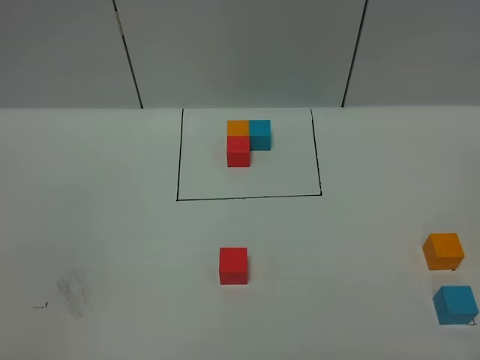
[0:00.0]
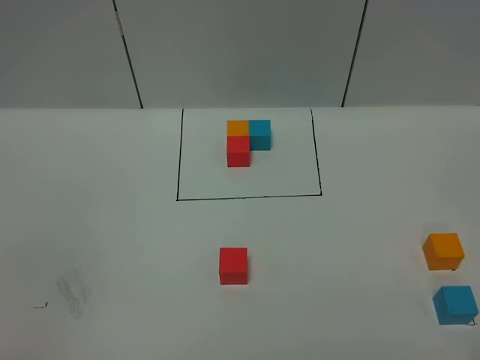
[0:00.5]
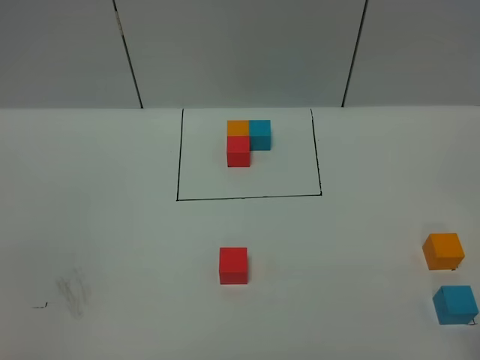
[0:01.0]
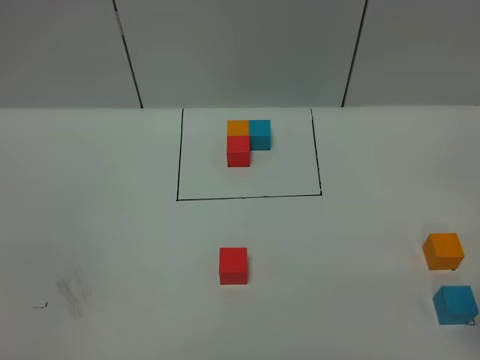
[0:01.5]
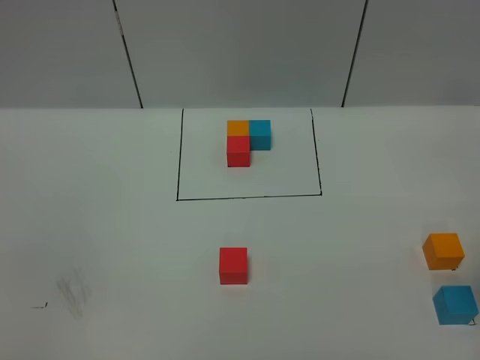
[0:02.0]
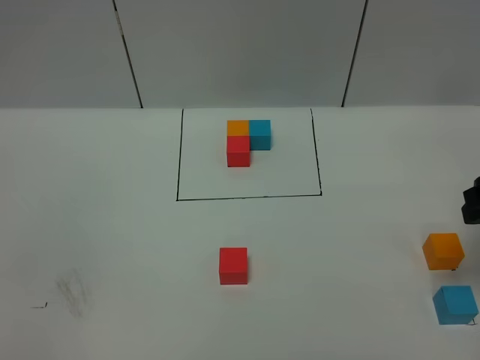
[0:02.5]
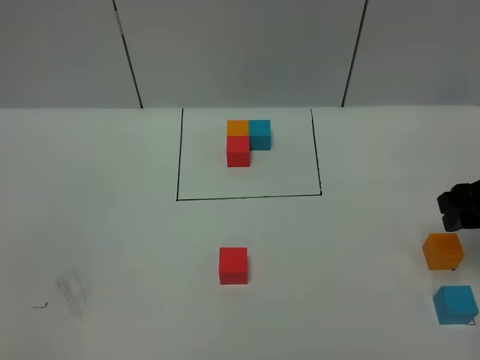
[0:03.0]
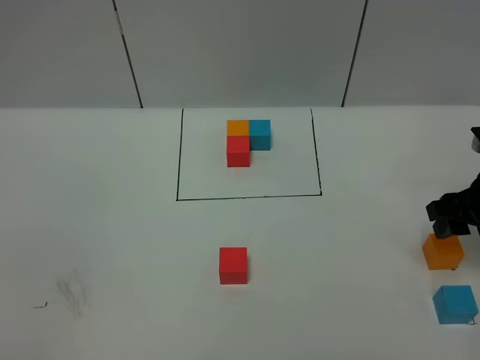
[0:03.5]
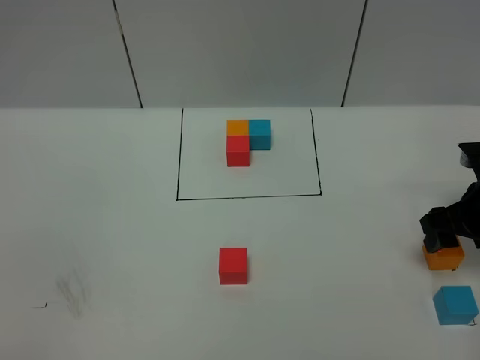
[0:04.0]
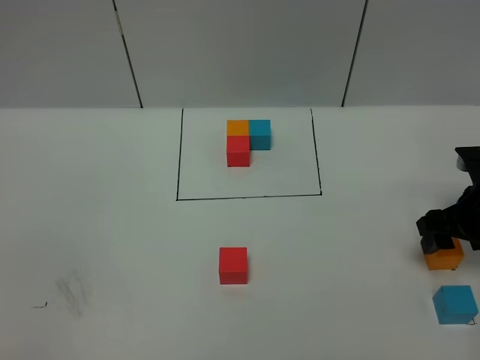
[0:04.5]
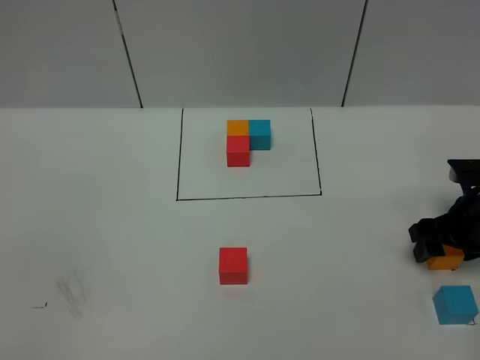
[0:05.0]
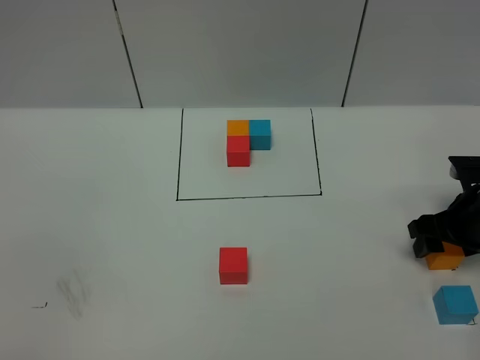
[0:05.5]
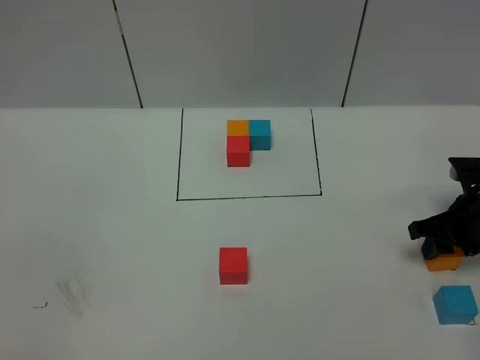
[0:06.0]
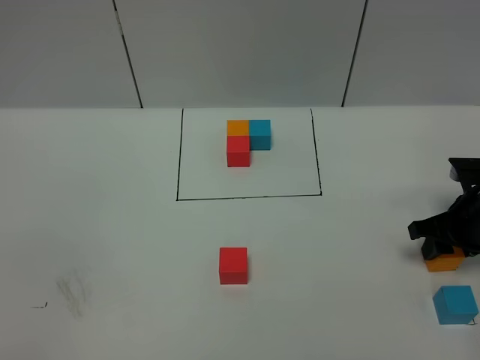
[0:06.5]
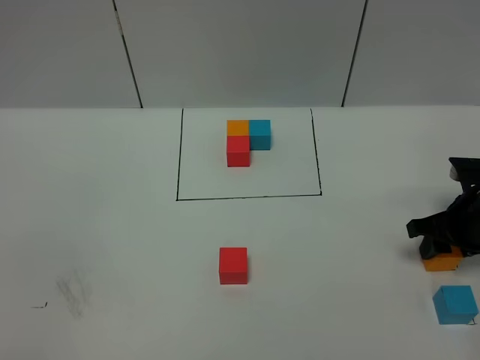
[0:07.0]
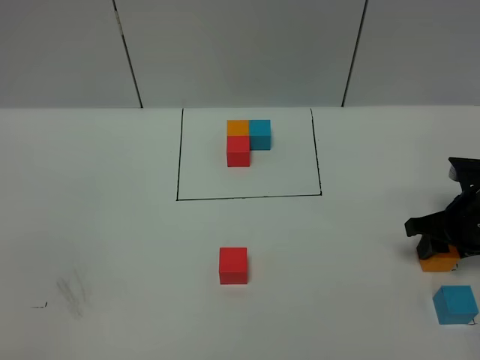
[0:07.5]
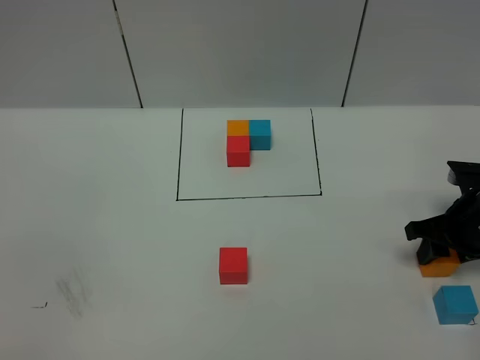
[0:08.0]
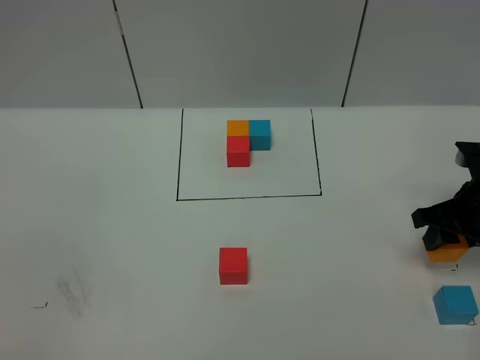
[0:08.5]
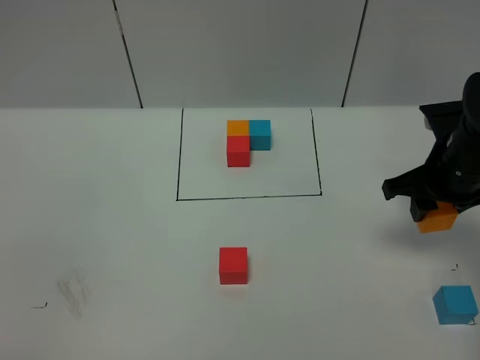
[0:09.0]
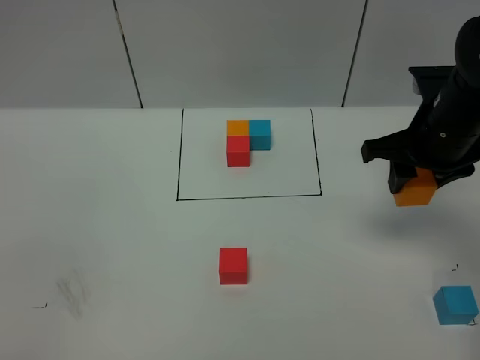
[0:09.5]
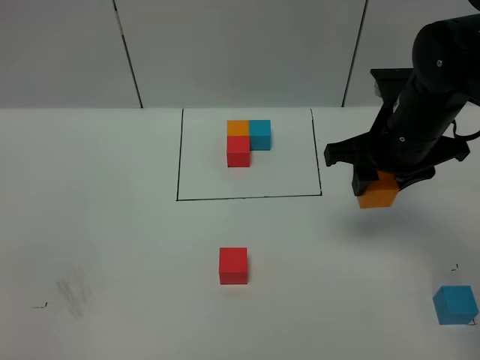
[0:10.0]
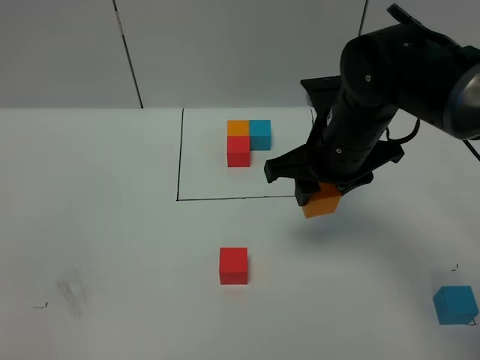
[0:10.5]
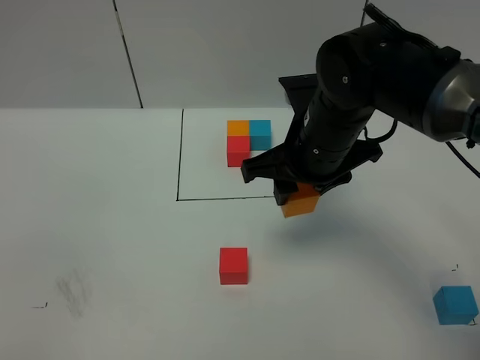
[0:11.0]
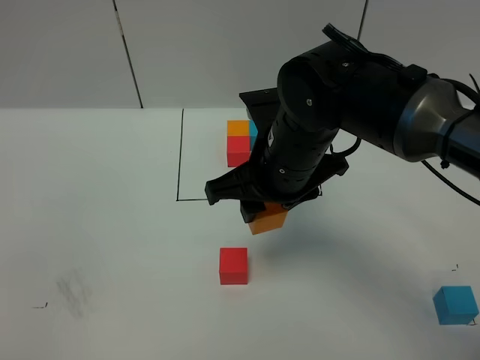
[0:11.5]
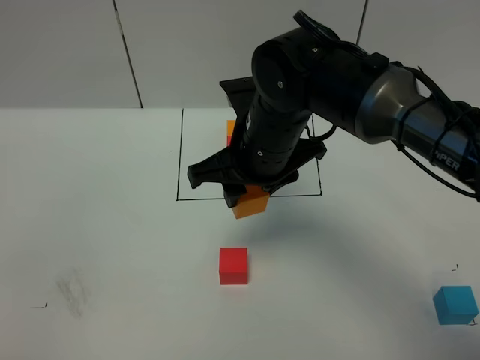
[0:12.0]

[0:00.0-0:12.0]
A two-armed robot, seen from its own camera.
Task of the whole recording: According to the building block template in front, assemble the scattered blocks together.
0:02.0 to 0:04.0: The right gripper moves downward and forward, some 20 cm.
0:04.0 to 0:06.0: The right gripper closes its fingers.
0:06.0 to 0:08.0: Neither gripper changes place.
0:08.0 to 0:10.0: The right gripper travels upward and to the left by some 20 cm.
0:10.0 to 0:12.0: The right gripper travels to the left by about 15 cm.

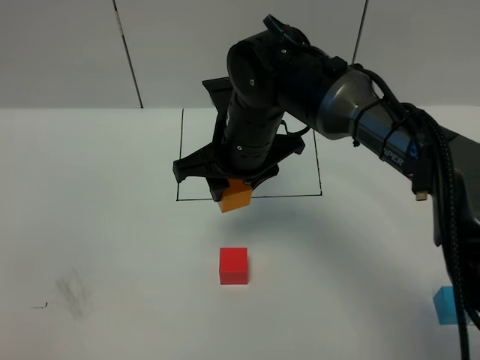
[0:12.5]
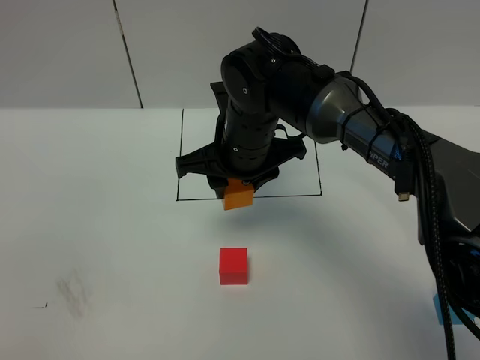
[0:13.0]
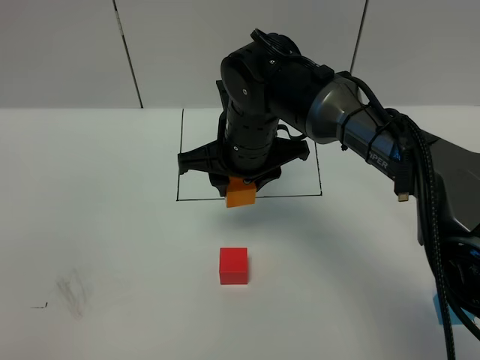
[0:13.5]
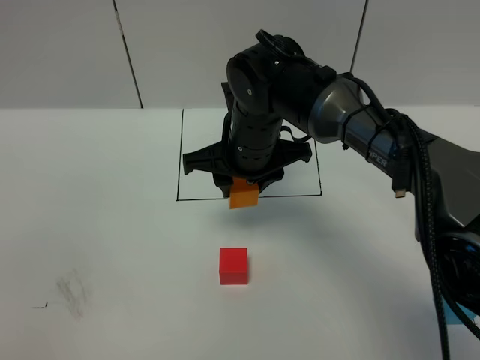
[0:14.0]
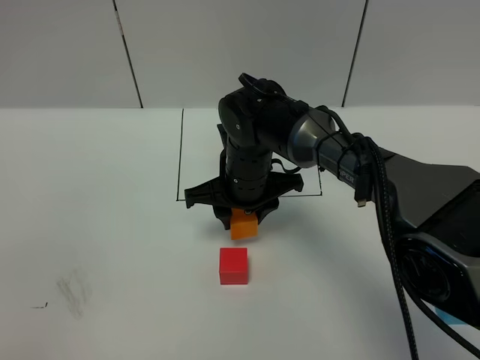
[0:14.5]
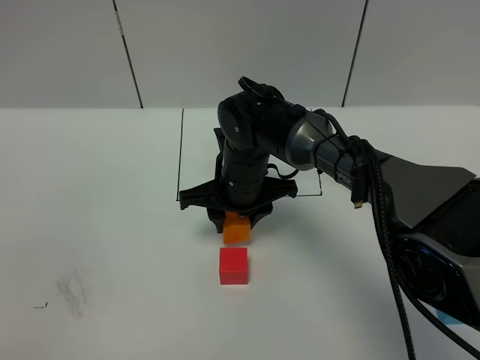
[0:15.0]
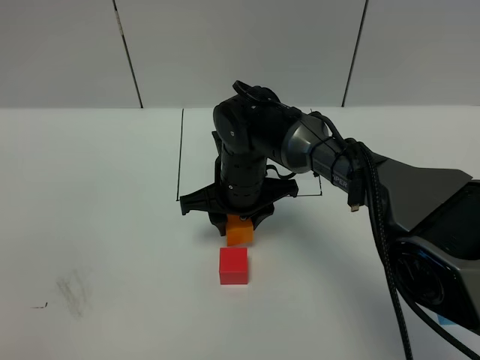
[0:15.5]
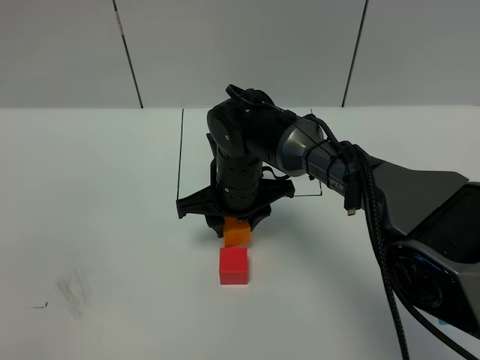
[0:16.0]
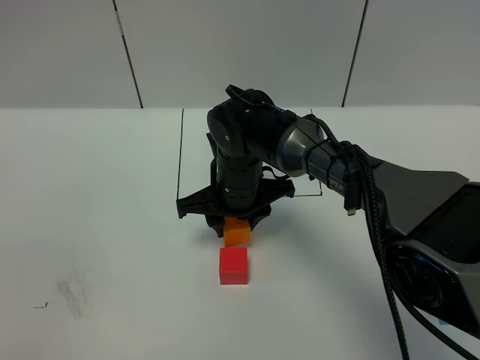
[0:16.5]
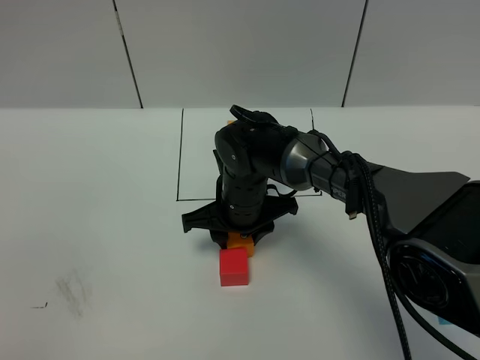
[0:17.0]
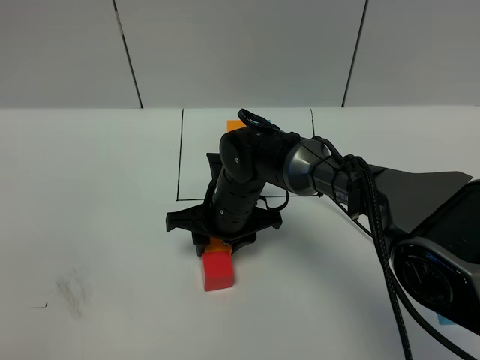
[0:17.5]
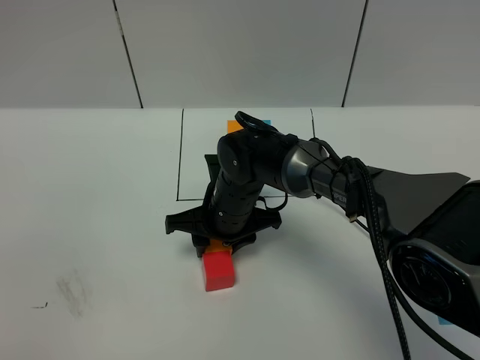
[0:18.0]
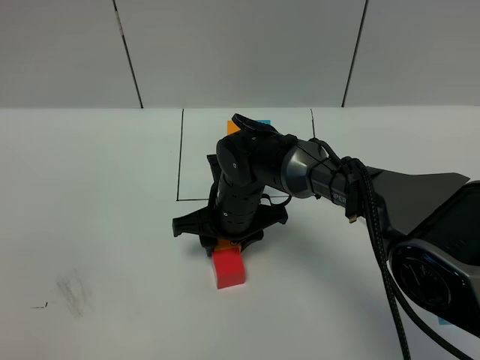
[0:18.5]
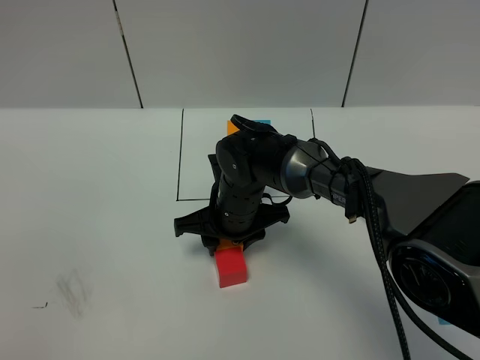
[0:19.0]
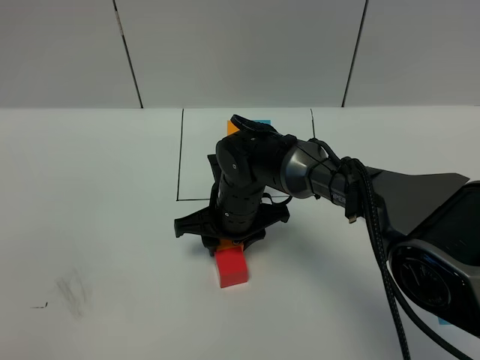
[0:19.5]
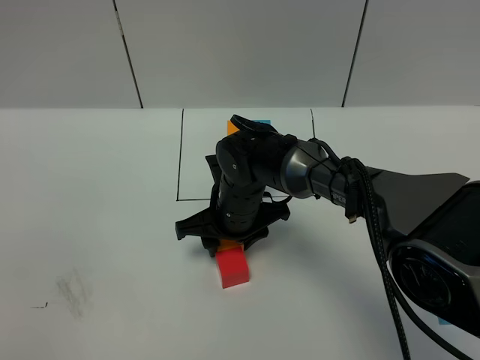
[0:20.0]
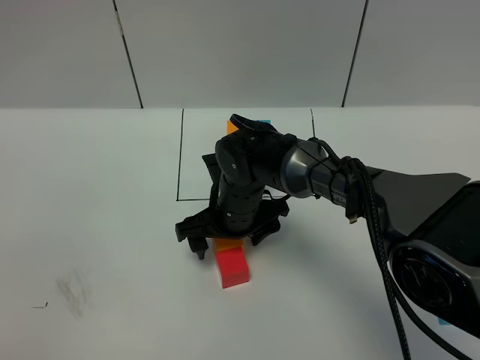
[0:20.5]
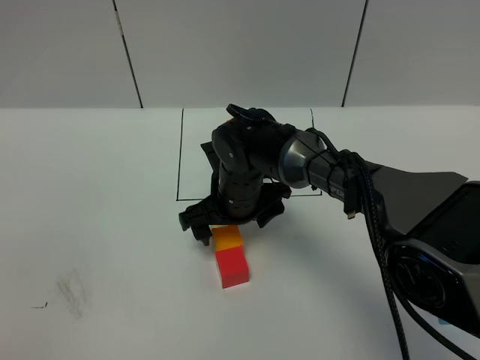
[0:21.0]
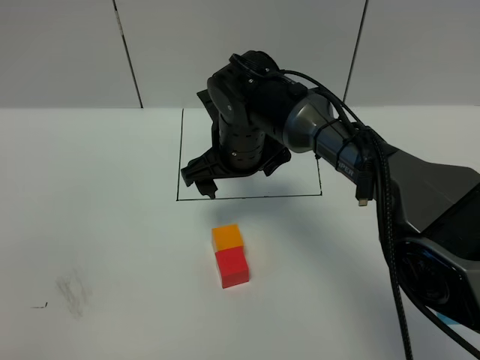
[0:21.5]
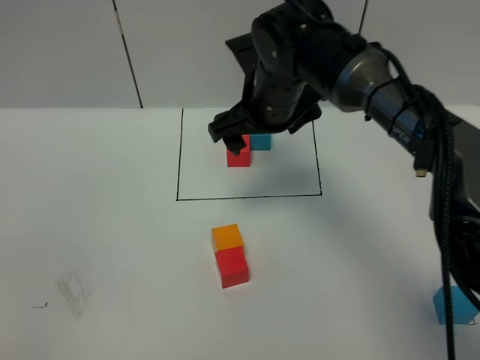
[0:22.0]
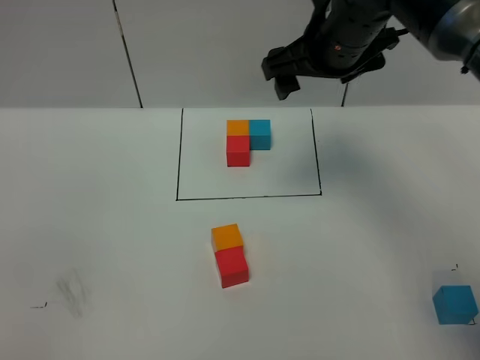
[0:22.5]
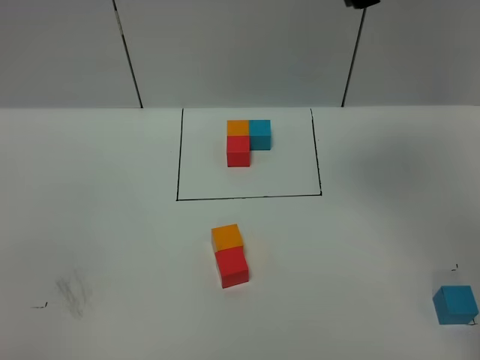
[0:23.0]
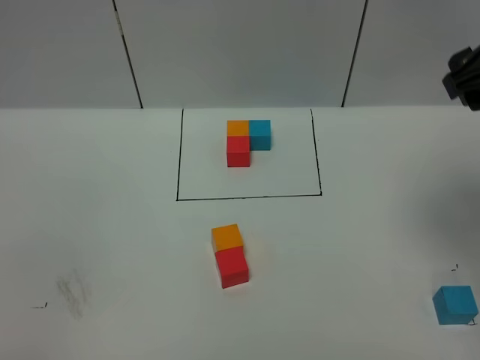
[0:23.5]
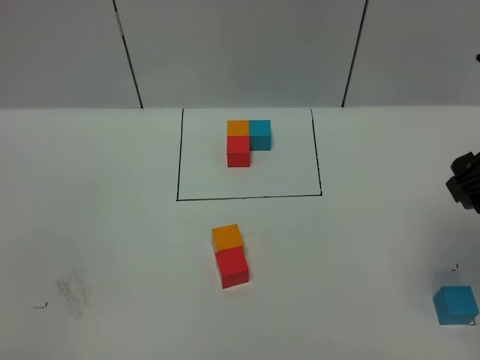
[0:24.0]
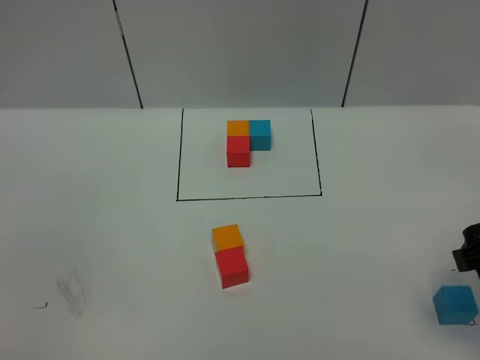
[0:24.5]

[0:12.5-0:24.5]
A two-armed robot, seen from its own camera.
Task of the whole recording: According to the building block template in front, assemble the scattered blocks together.
Step, 0:12.5 to 0:20.5: Put the orange cube on the behind of the red cube.
0:12.5 to 0:14.5: The right gripper heads downward, covering some 10 cm.
0:14.5 to 0:18.5: There are only small adjustments of the grippers.
0:18.5 to 0:20.5: The right gripper opens its fingers.
0:20.5 to 0:22.5: The right gripper travels upward and to the right by roughly 25 cm.
0:22.5 to 0:24.5: The right gripper travels backward and to the right by about 25 cm.

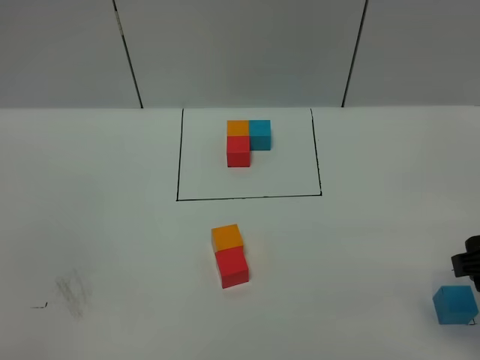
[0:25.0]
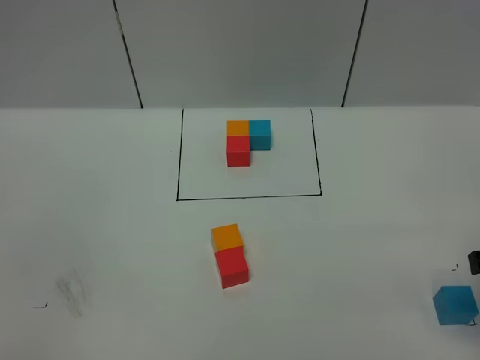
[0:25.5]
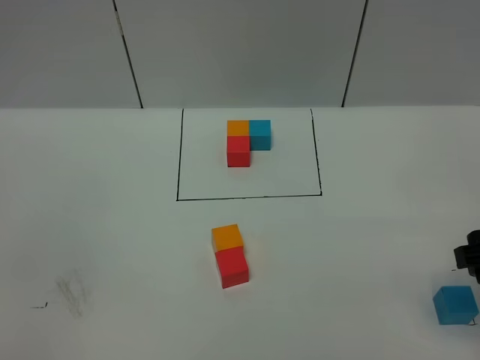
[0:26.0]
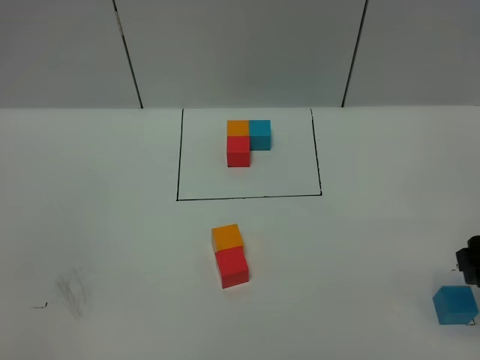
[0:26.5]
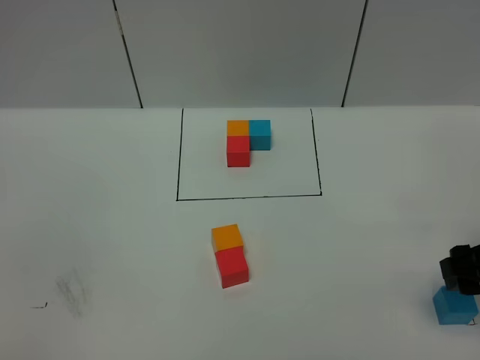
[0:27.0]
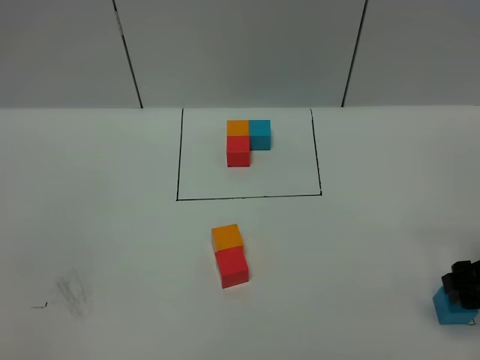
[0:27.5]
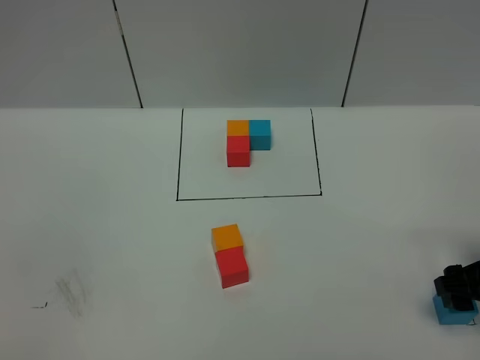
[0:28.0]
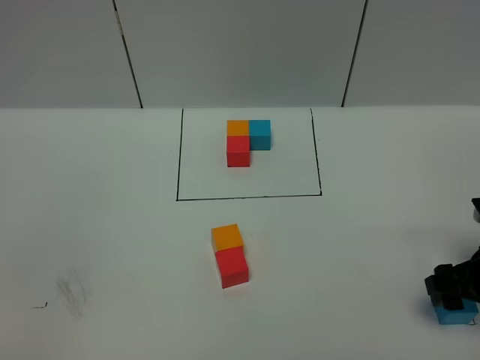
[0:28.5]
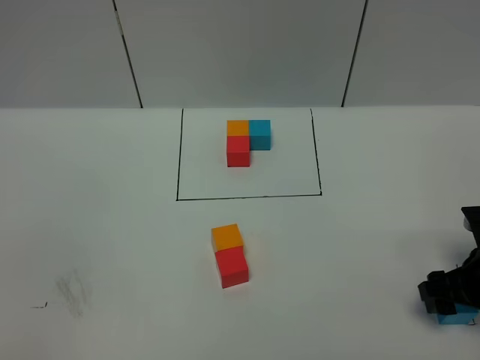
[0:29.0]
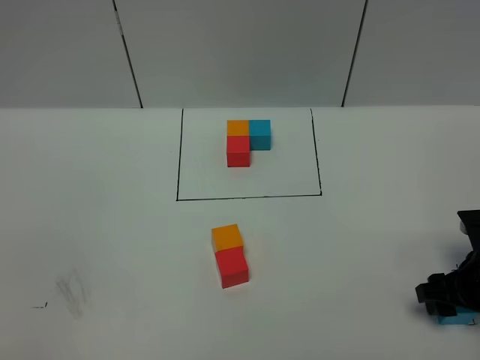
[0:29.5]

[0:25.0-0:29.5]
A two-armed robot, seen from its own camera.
Task of the whole recording: According to the building block template in front, assemble the scattered blocks together.
0:25.0 to 0:27.0: The right gripper shifts some 5 cm downward.
0:27.0 to 0:29.5: The right gripper travels downward by roughly 10 cm.
